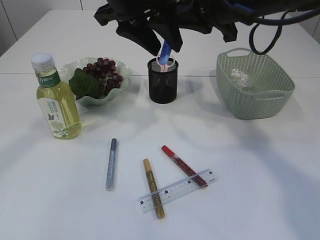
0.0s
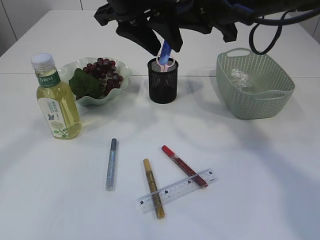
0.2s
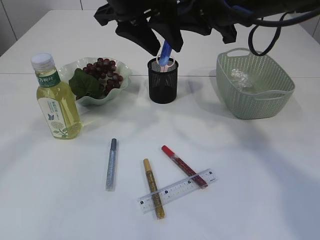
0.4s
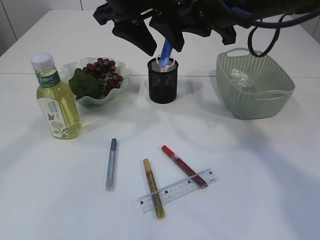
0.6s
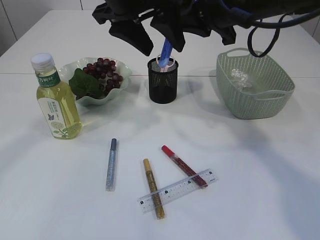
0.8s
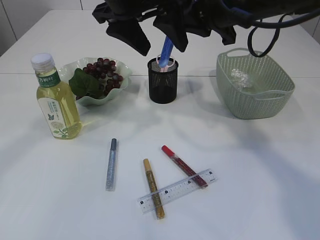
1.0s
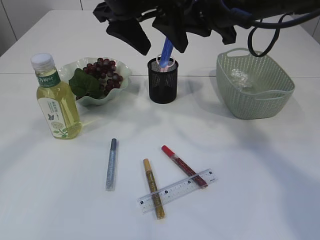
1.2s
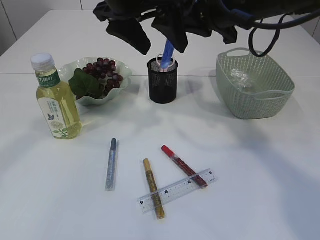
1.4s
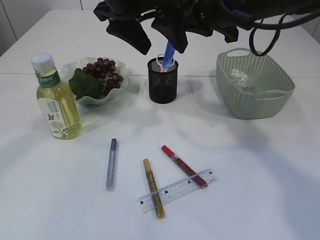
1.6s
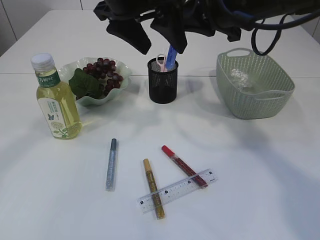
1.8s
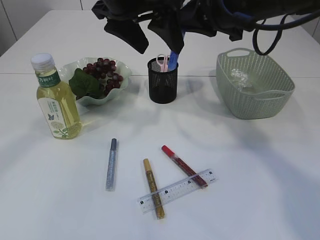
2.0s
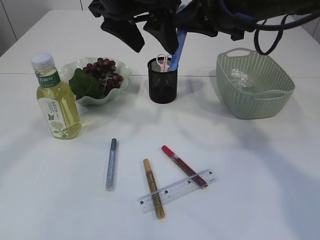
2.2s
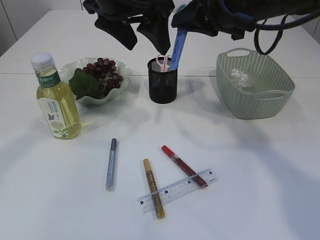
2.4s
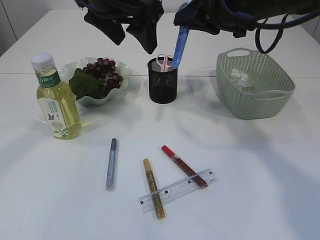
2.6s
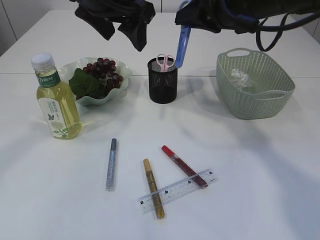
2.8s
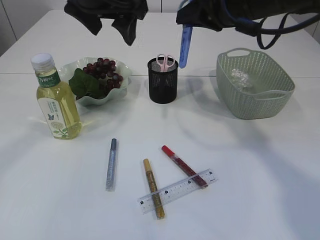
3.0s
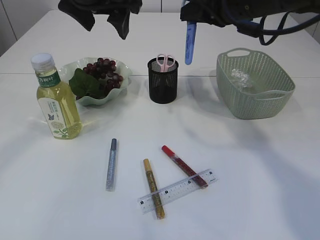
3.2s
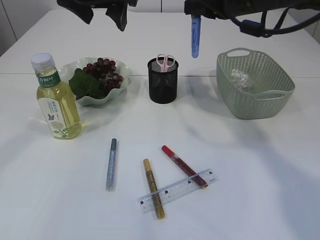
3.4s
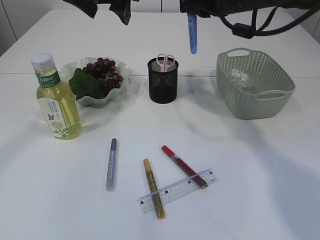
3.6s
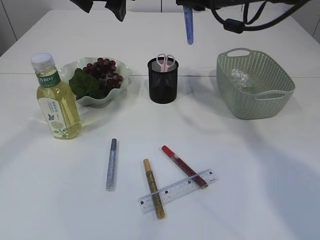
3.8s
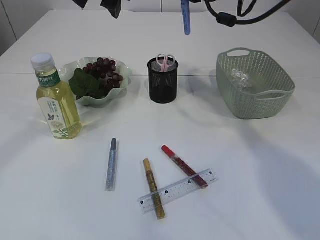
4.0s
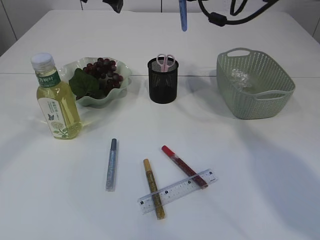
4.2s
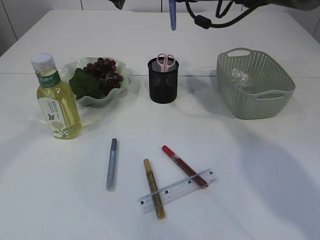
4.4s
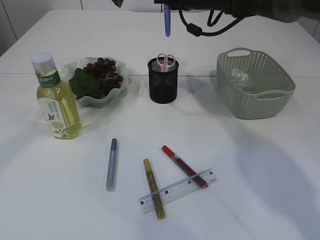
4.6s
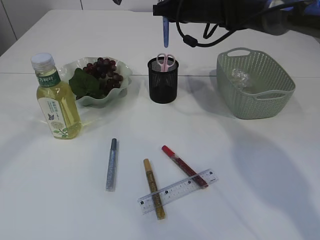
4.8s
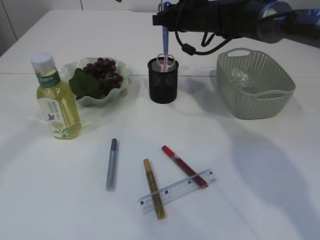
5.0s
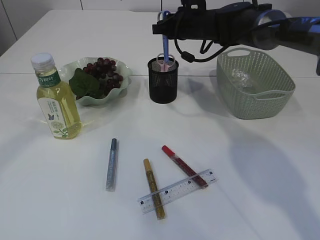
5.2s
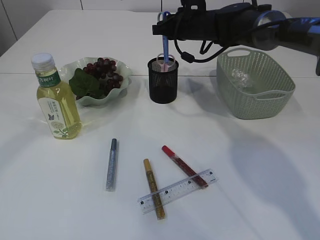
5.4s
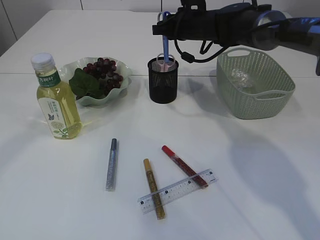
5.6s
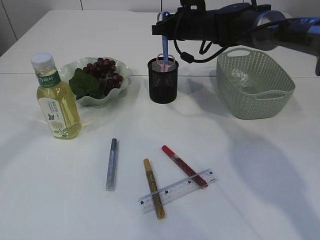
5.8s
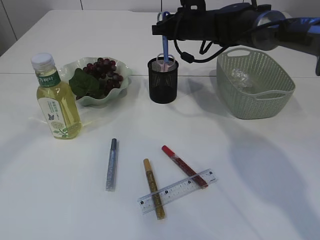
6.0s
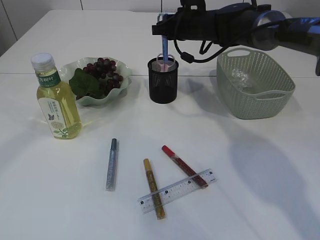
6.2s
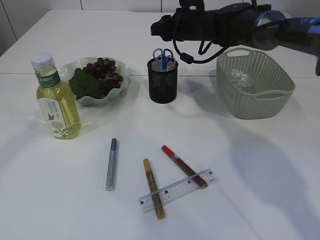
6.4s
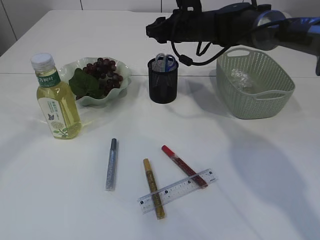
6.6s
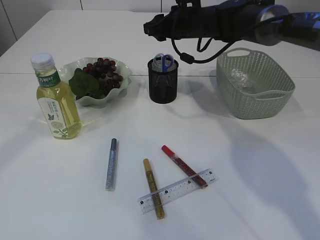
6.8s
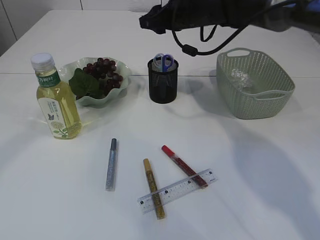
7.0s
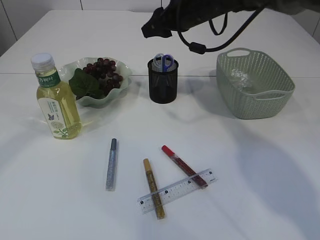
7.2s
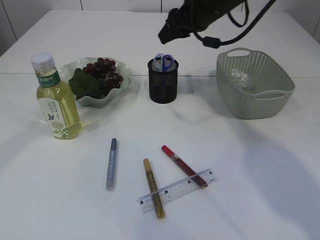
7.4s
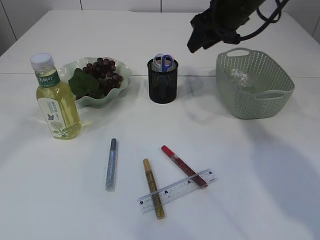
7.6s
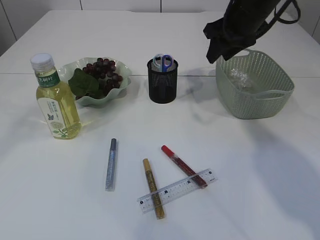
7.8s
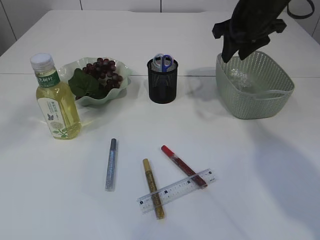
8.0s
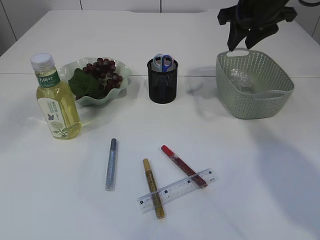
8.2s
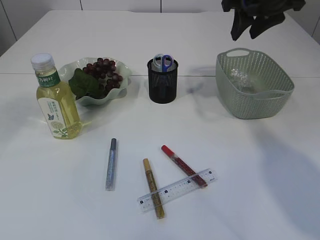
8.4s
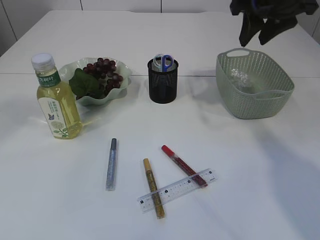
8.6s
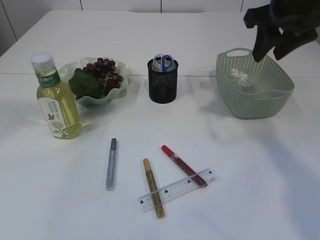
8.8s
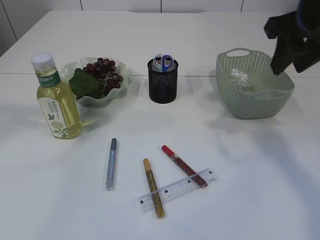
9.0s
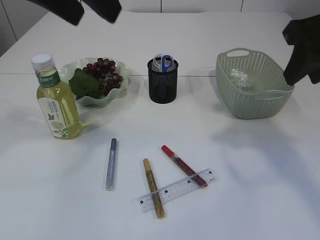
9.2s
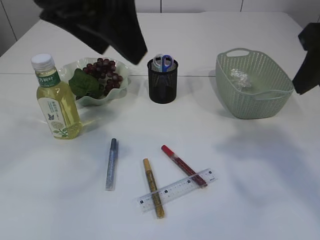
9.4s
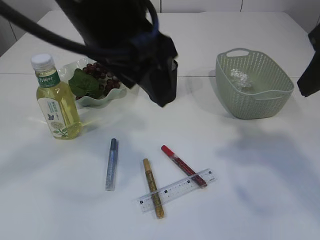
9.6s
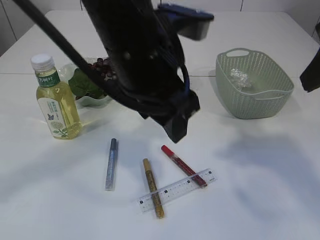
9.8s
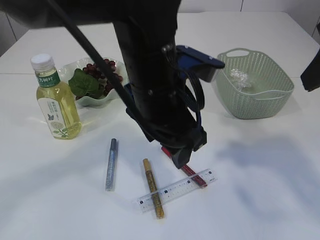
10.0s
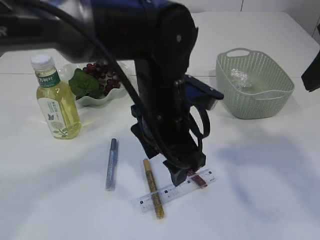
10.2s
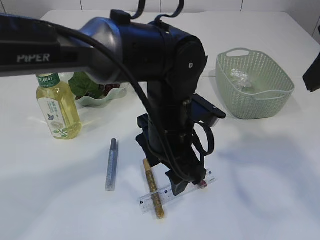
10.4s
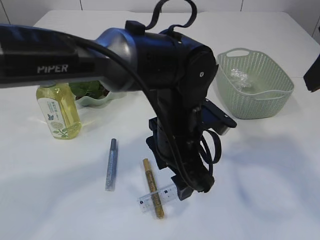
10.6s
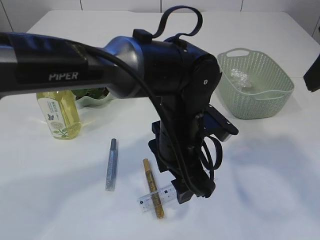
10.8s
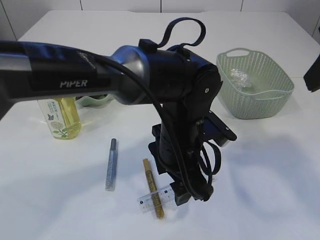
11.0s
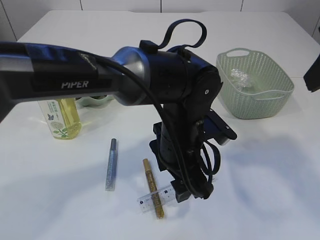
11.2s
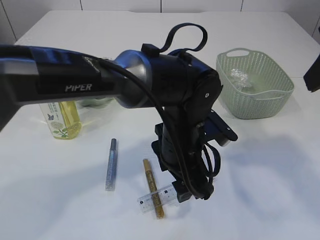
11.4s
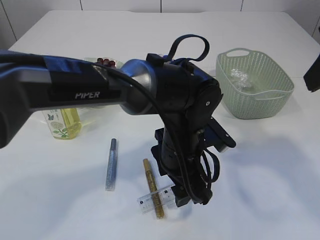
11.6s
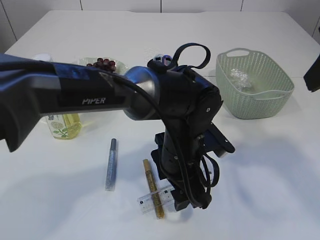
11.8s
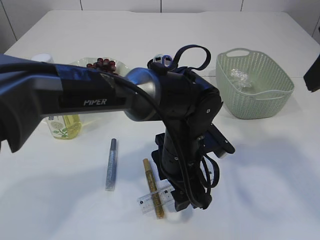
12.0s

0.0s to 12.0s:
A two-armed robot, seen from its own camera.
Step, 0.0s to 2.8s: Hand over the blue scissors.
Step, 3.0s to 6.6s: Place the blue knife into the pen holder.
0.0s to 1.6s: The left gripper opens up.
3.0s to 4.4s: The right gripper shifts roughly 10 cm forward.
4.4s to 6.0s: The right gripper is displaced downward by about 10 cm.
6.0s to 7.6s: The right gripper travels backward, upward and to the right by approximately 10 cm, and opens up.
7.6s to 9.0s: The left gripper is displaced backward and upward by about 15 cm, while the right gripper heads backward and to the right, covering roughly 15 cm.
9.0s to 10.4s: The right gripper goes about 10 cm backward, while the left gripper goes about 30 cm downward and to the right.
10.4s to 12.0s: The left gripper is displaced downward by some 5 cm.

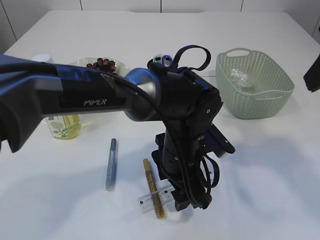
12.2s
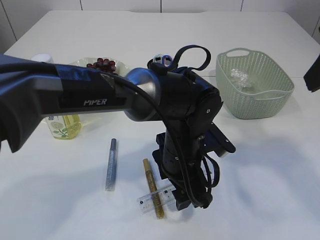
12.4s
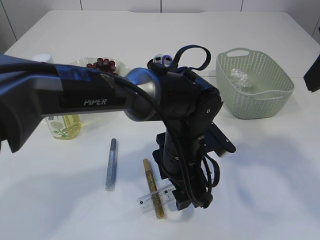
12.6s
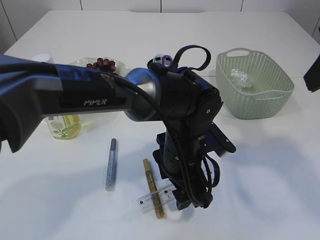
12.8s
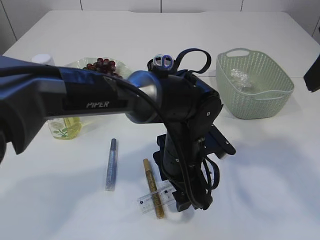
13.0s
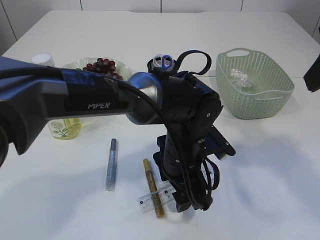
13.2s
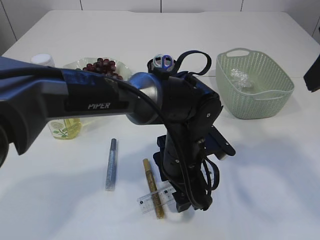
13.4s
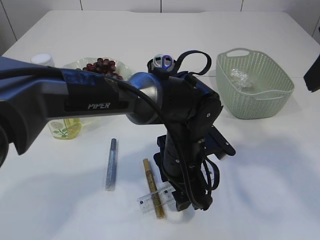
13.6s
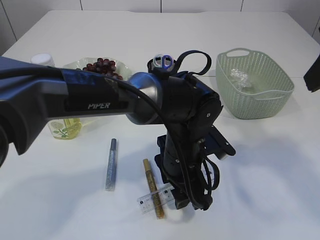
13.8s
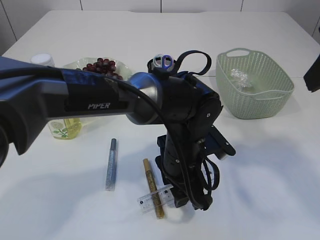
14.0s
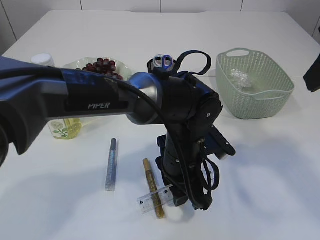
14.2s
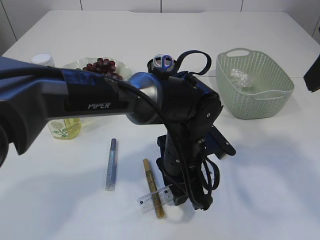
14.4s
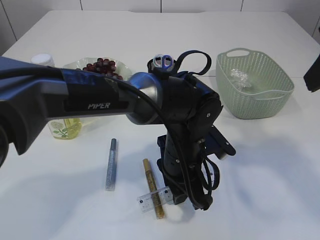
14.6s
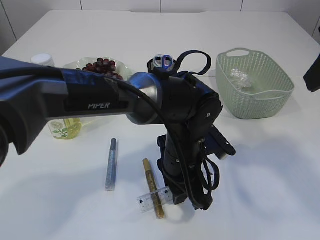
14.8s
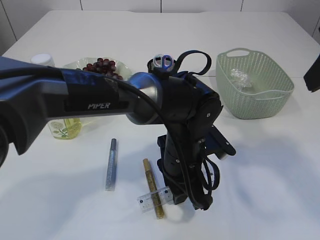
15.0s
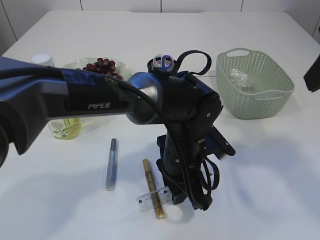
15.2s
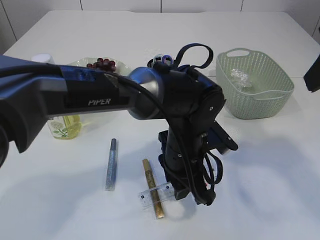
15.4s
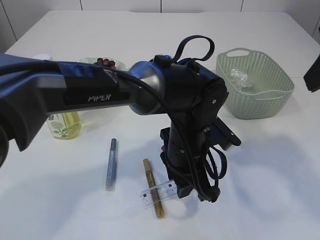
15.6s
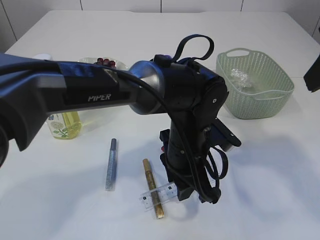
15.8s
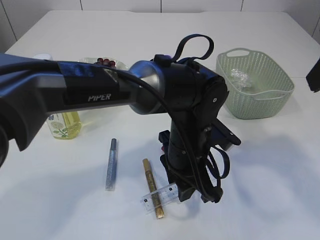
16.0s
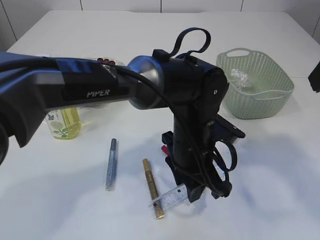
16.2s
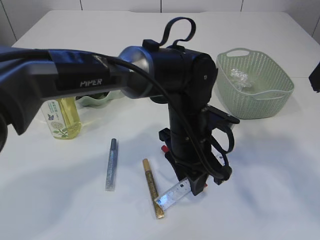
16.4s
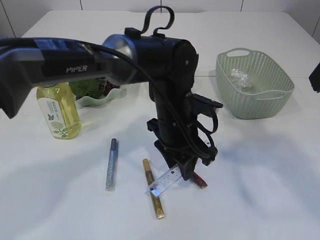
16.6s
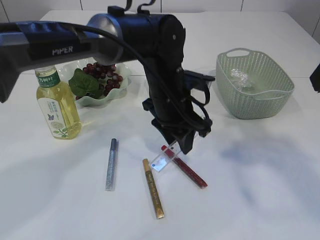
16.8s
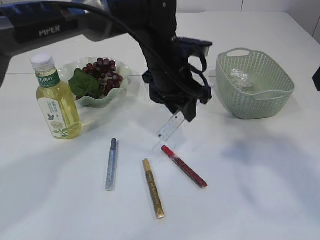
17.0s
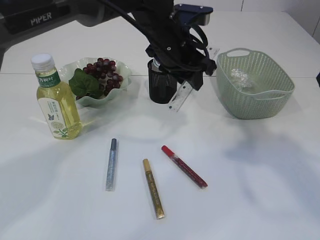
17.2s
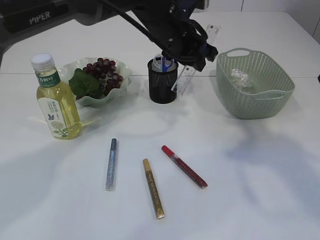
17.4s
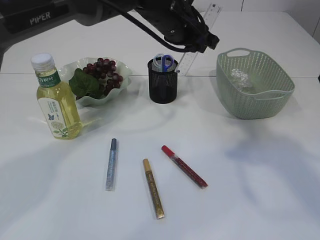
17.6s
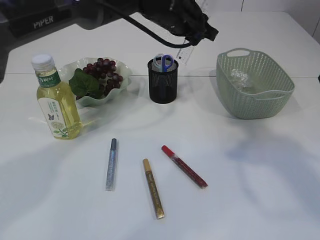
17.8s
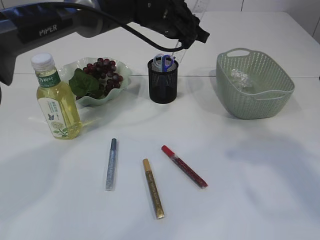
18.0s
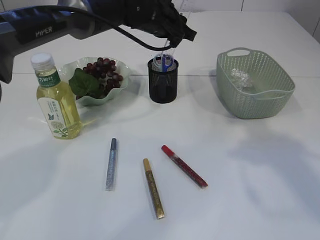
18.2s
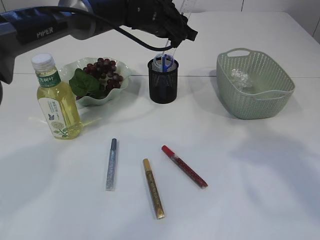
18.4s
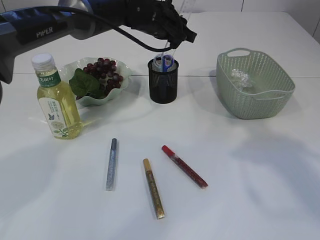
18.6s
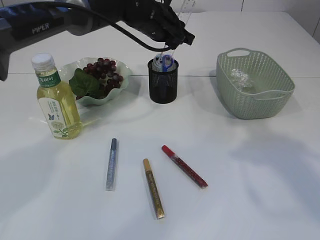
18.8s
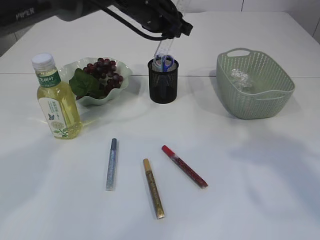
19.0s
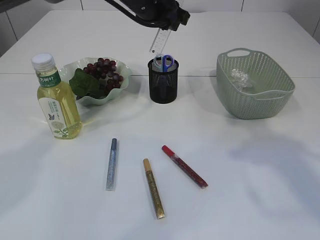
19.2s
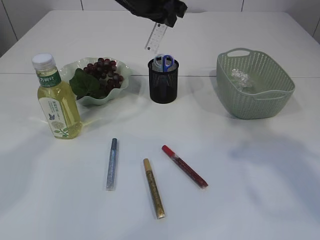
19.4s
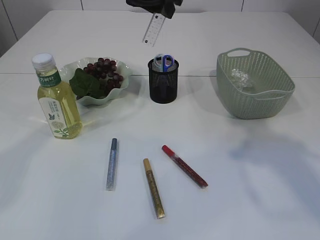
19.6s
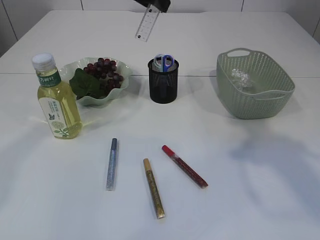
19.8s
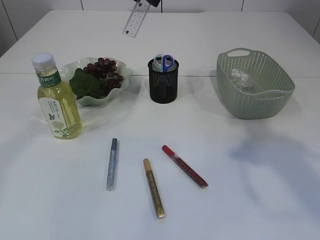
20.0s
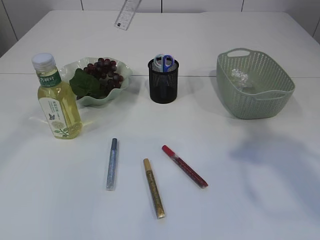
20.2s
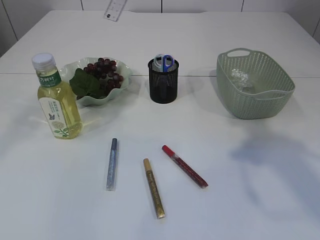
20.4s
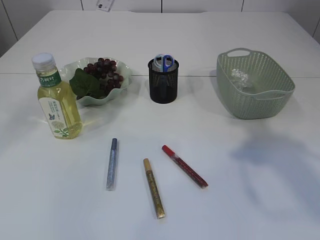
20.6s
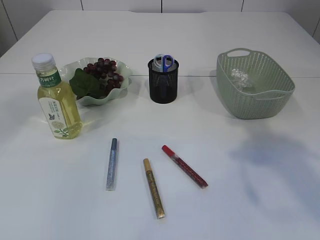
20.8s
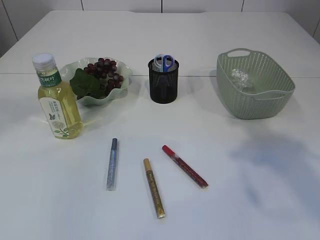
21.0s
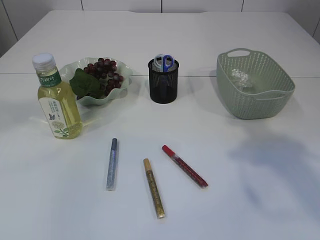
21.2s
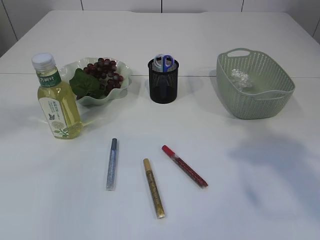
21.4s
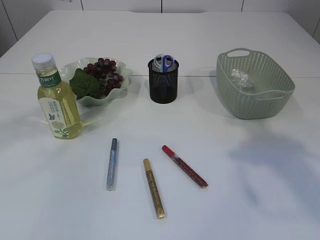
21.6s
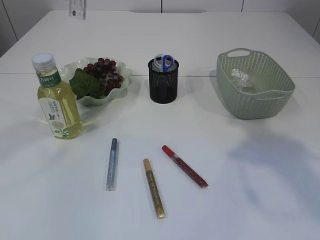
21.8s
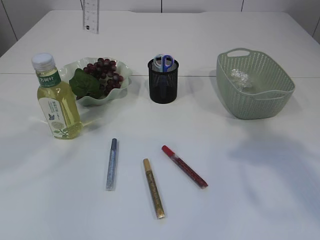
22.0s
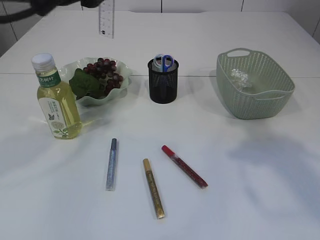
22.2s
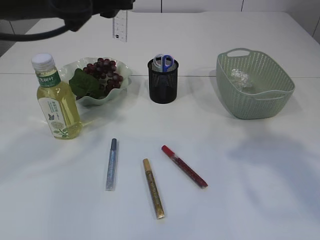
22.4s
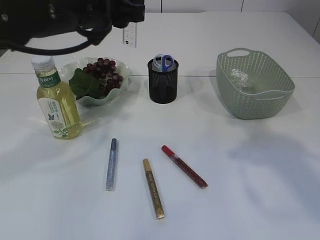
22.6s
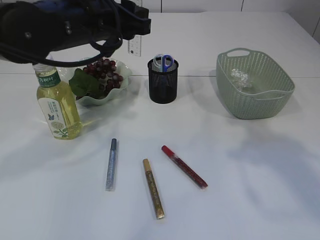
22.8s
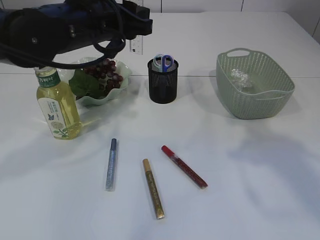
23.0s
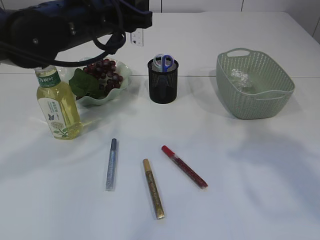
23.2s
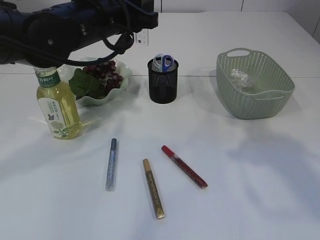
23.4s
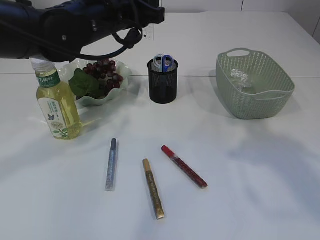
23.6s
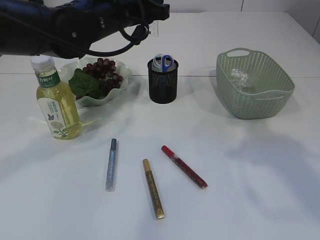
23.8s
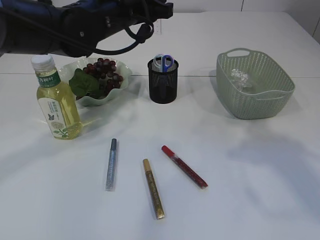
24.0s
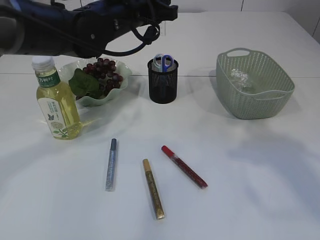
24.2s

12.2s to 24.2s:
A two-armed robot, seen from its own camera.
Step, 12.2s to 16.8s: pick up the ruler.
12.2s to 13.8s: Neither gripper changes place.
15.2s to 16.6s: The left gripper moves roughly 5 cm.
16.6s to 18.2s: The left gripper is displaced forward and upward by about 20 cm.
18.2s to 19.8s: The left gripper is displaced upward and backward by roughly 15 cm.
19.8s to 21.2s: The left gripper moves upward, backward and to the left, about 25 cm.
21.2s to 22.6s: The left gripper goes approximately 20 cm downward.
22.6s to 24.2s: The left gripper is displaced forward by approximately 10 cm.
